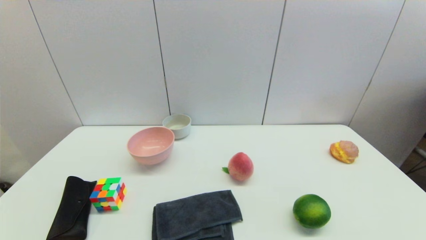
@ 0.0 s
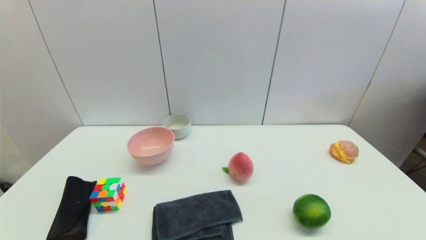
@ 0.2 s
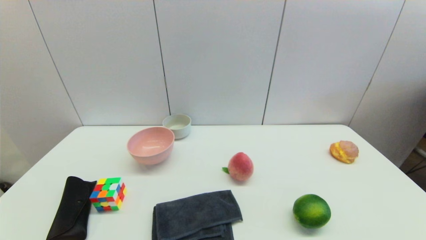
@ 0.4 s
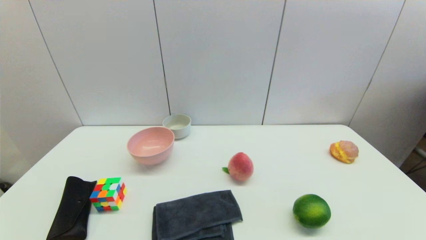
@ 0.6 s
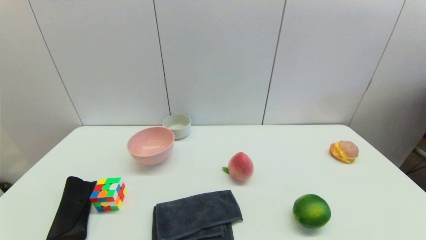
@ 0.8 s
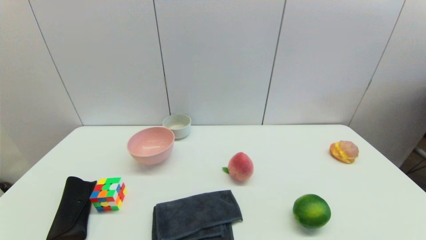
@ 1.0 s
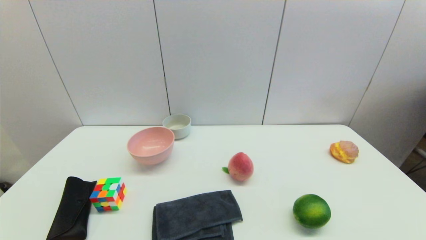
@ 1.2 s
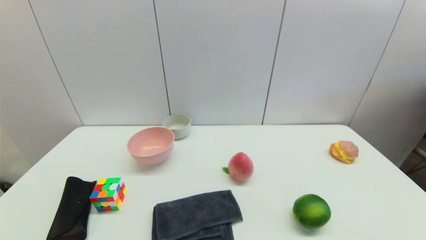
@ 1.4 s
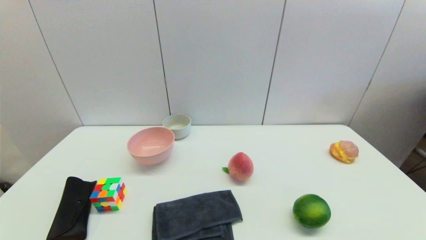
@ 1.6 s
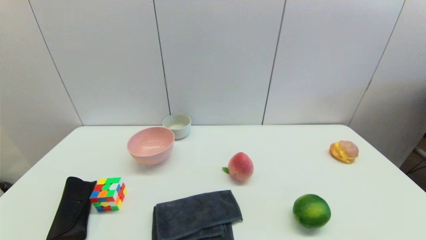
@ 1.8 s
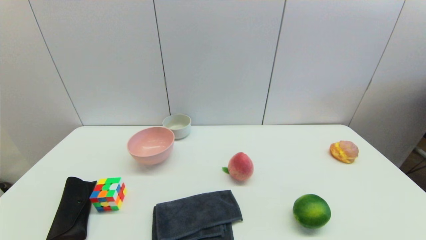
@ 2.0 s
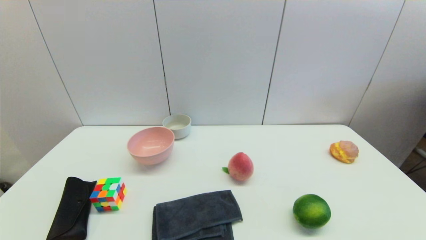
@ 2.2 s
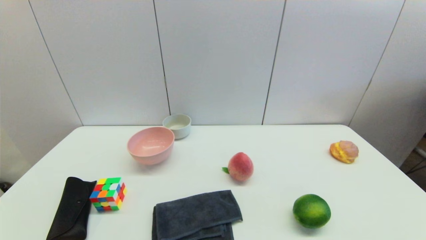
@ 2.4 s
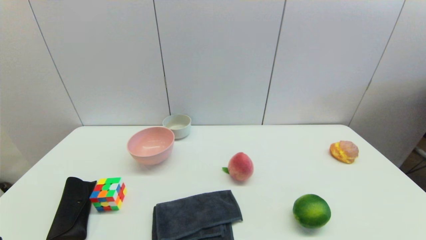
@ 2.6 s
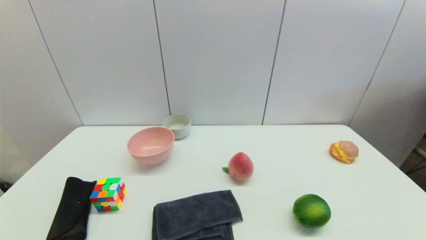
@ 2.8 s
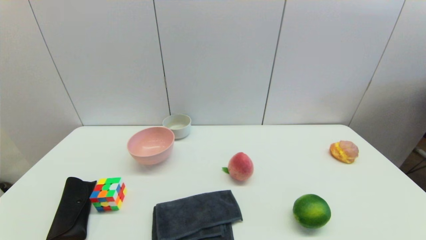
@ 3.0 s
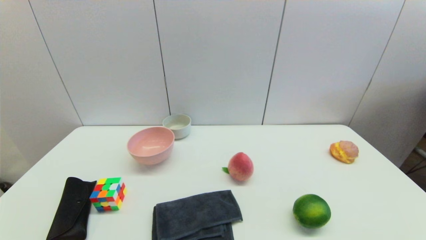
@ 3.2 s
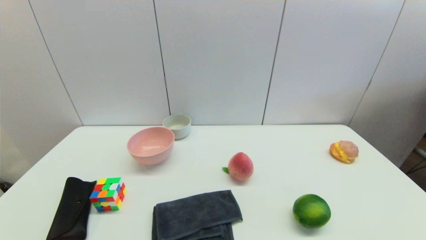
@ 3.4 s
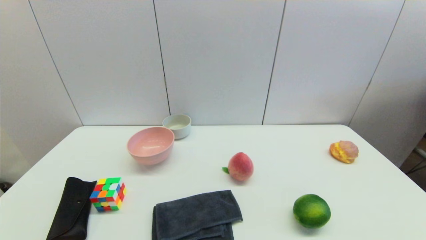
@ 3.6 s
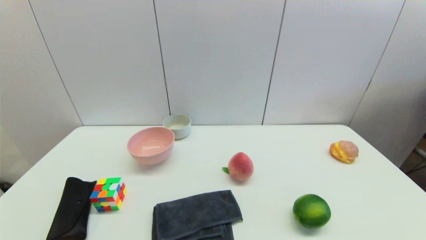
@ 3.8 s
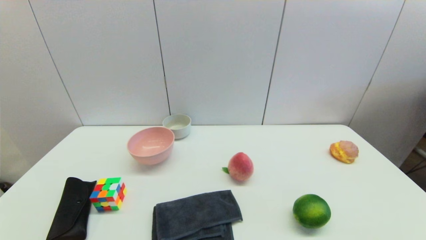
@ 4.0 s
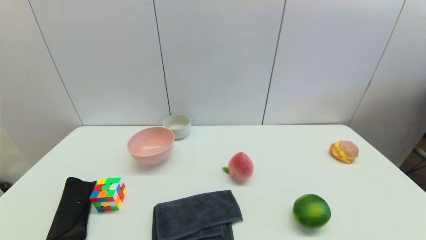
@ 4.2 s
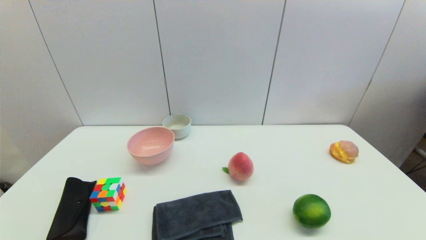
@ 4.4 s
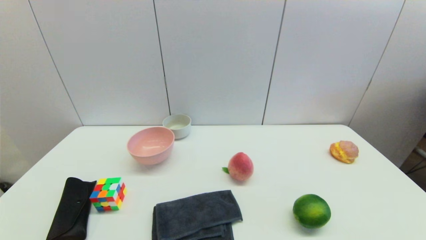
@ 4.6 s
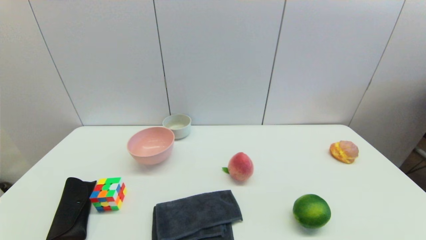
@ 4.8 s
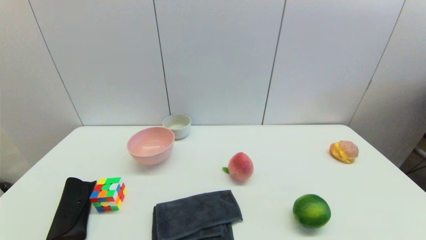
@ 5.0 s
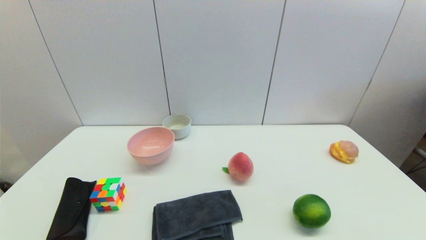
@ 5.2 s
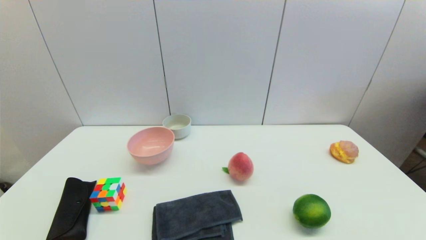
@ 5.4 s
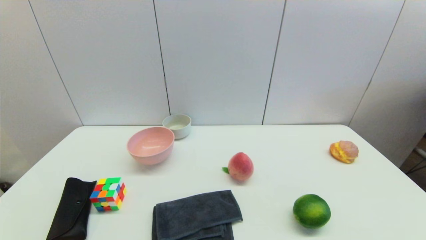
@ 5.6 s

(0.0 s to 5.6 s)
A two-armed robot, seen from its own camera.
4.2 s - 5.6 s: Both grippers stay about where they are.
